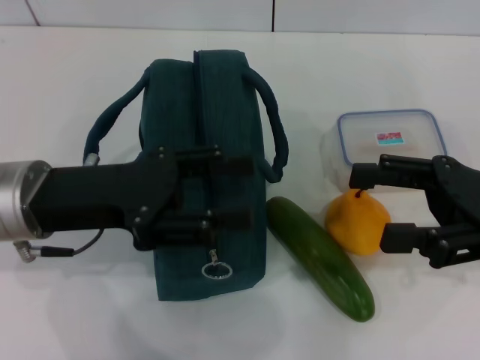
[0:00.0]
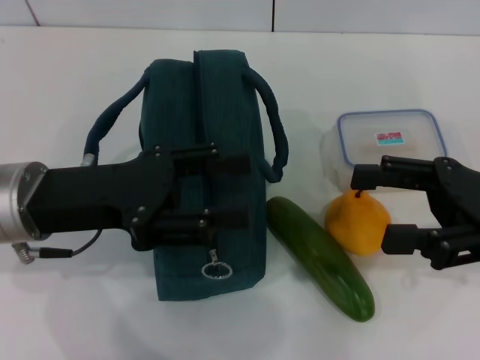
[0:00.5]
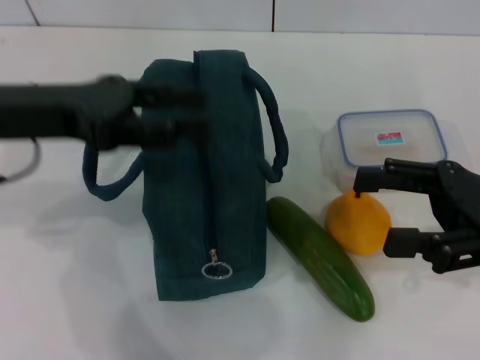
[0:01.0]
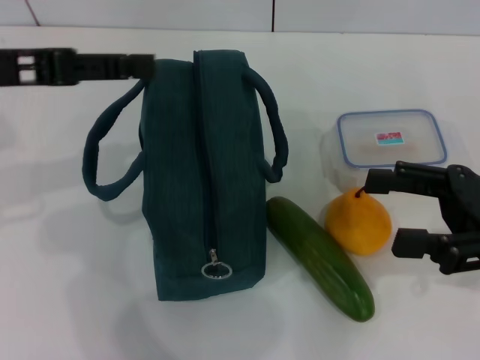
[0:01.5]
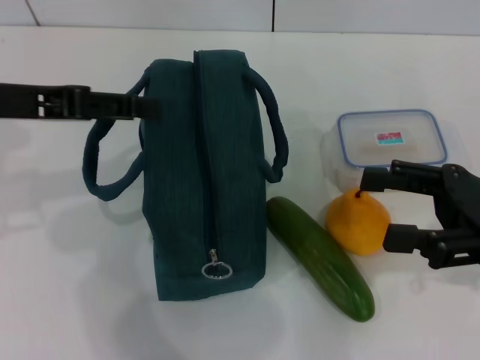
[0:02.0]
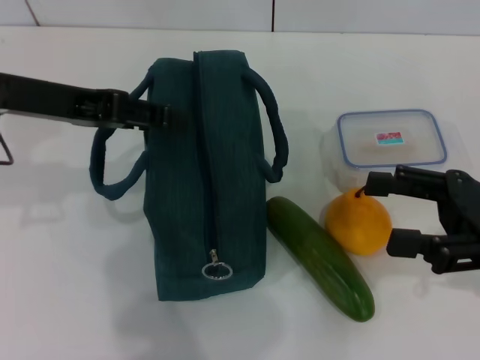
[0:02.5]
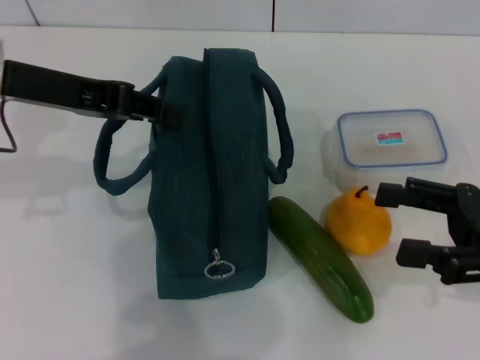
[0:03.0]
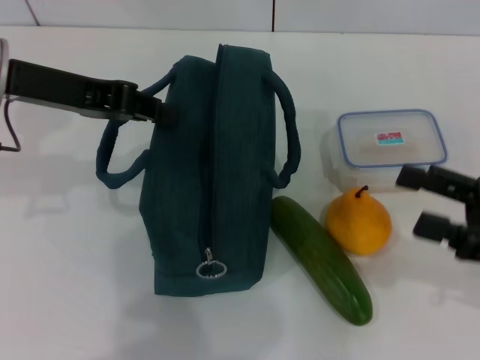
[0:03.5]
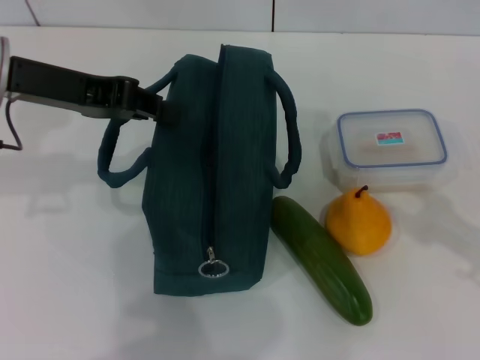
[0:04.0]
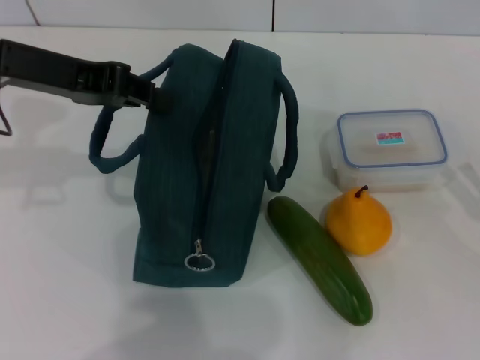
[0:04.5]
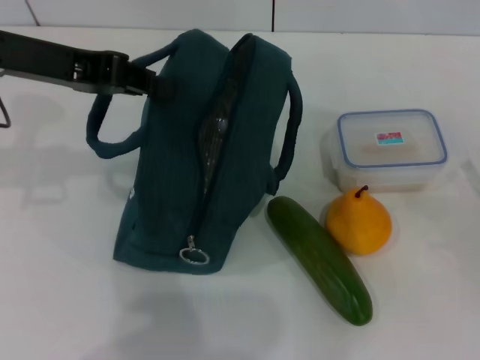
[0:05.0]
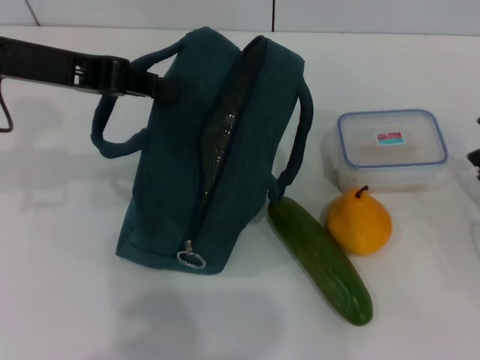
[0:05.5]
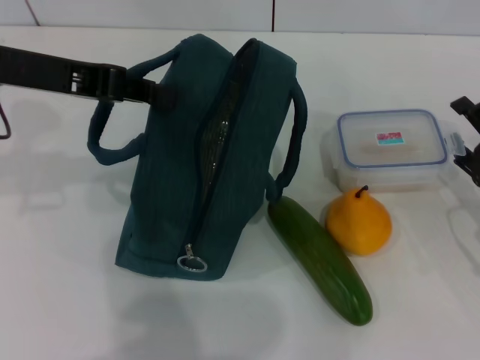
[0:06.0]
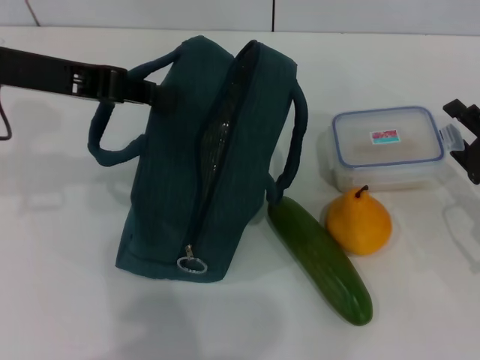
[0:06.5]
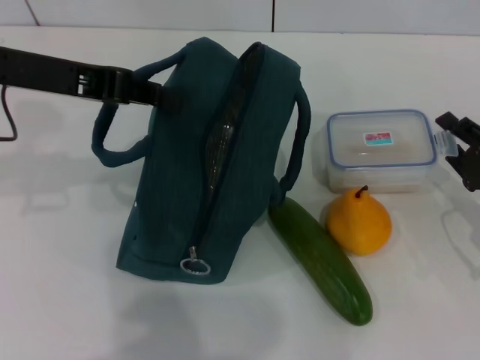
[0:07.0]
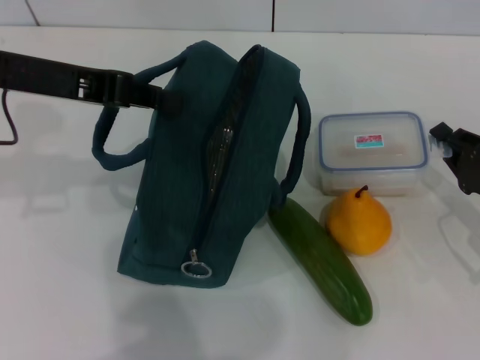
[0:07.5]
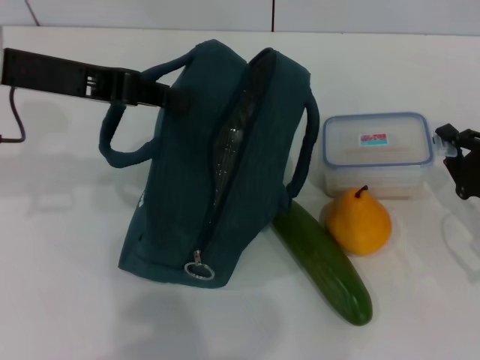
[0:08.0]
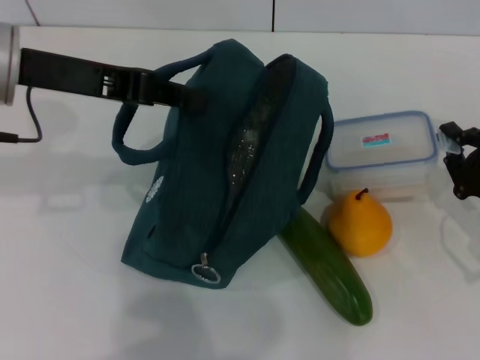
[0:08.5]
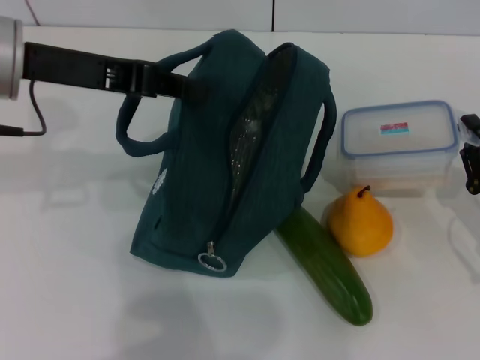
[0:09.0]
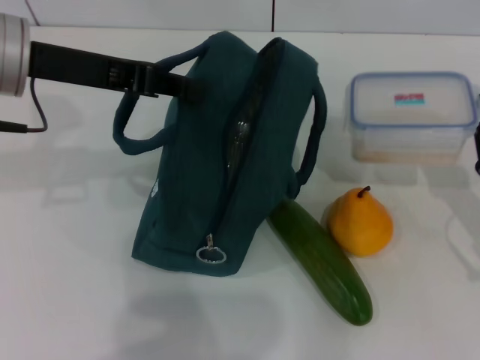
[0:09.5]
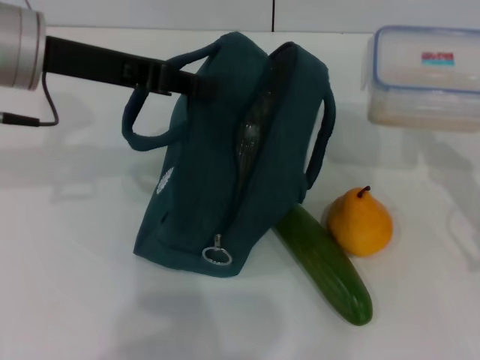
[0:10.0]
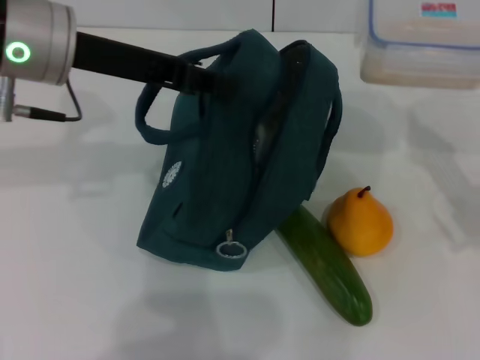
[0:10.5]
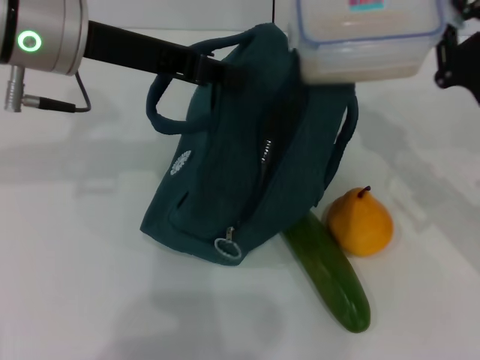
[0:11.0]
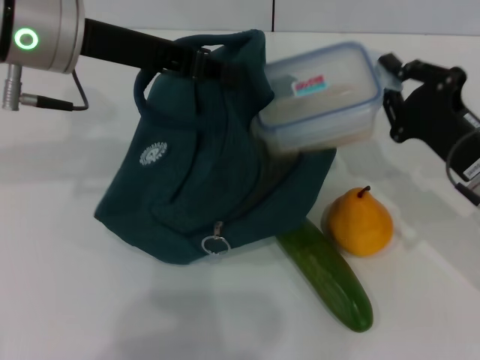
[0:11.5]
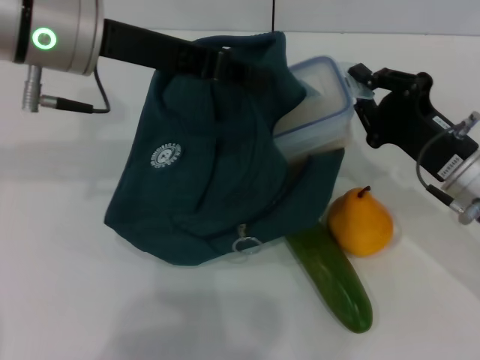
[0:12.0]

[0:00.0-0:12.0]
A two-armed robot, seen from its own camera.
Step, 0:00.0 to 0:04.0: Hold the lunch bag with your left hand.
Step, 0:04.5 to 0:08.0: Pick up the lunch box with your right hand.
0:00.0 to 0:02.0: The left gripper travels upward and to the left by approximately 10 cm.
0:02.0 to 0:04.0: The right gripper heads to the right, covering roughly 5 cm. The left gripper closes.
0:04.0 to 0:06.0: The right gripper is displaced downward and forward by approximately 10 cm.
0:06.0 to 0:08.0: The right gripper closes its fingers.
0:10.0 to 0:12.0: The right gripper is displaced to the left by approximately 10 cm.

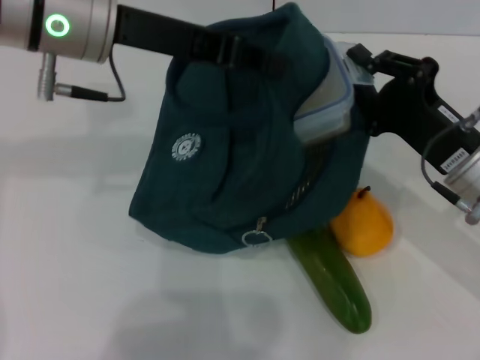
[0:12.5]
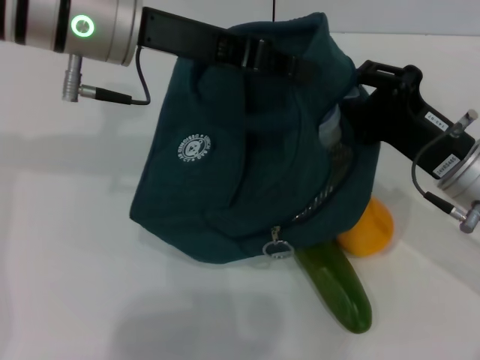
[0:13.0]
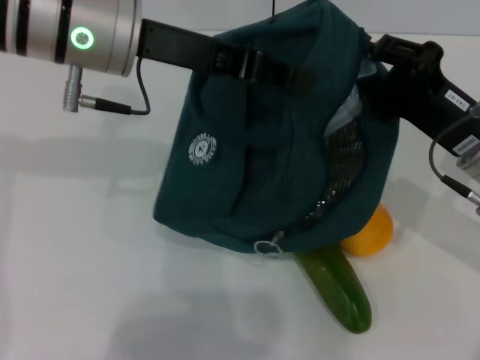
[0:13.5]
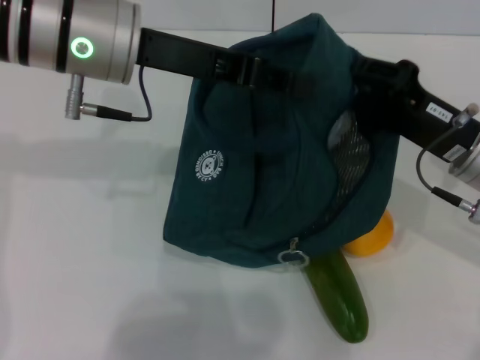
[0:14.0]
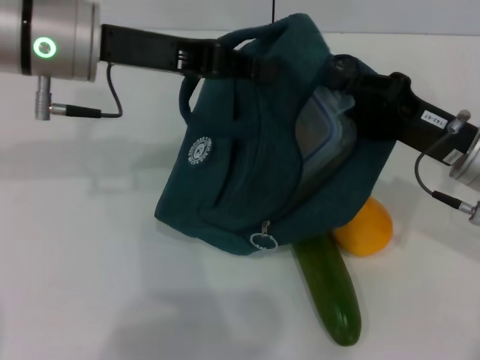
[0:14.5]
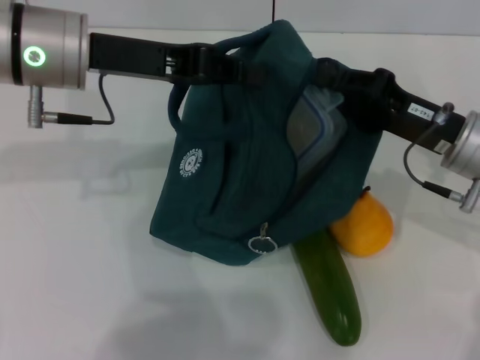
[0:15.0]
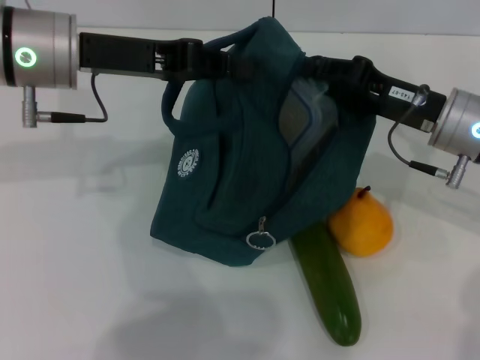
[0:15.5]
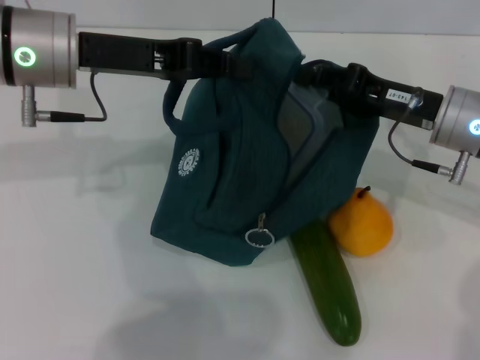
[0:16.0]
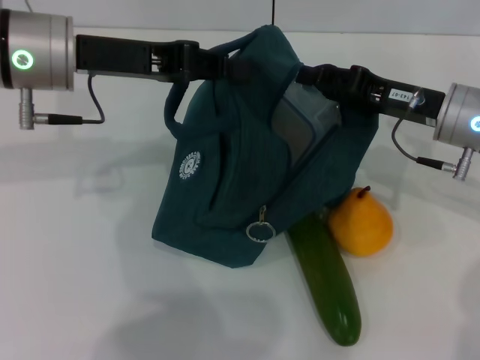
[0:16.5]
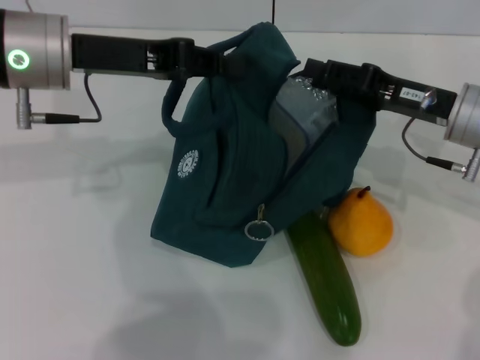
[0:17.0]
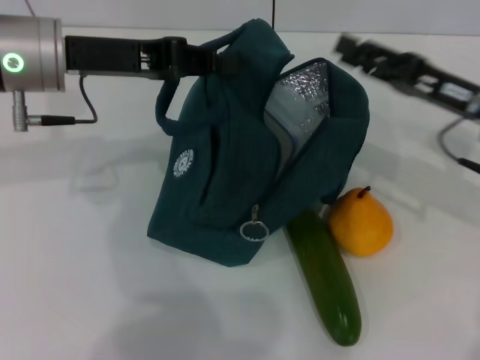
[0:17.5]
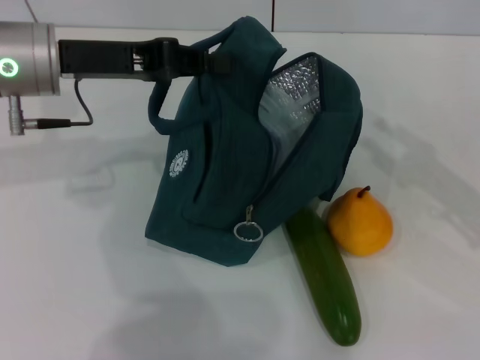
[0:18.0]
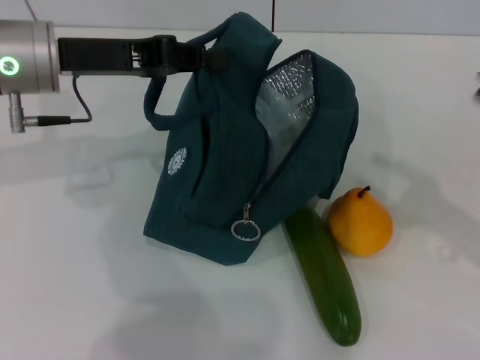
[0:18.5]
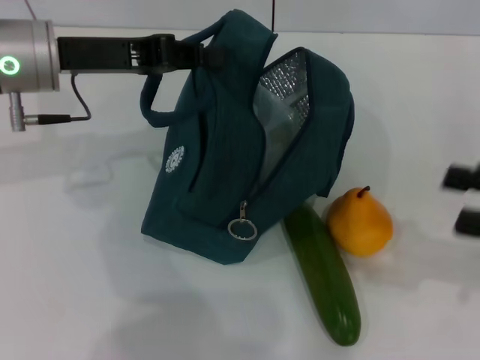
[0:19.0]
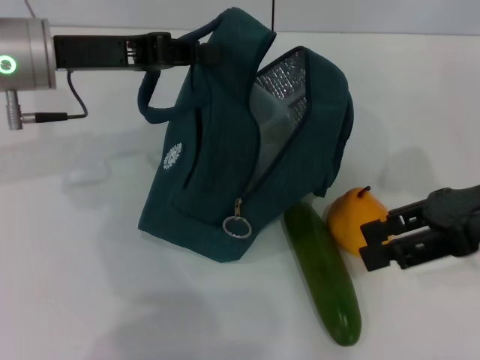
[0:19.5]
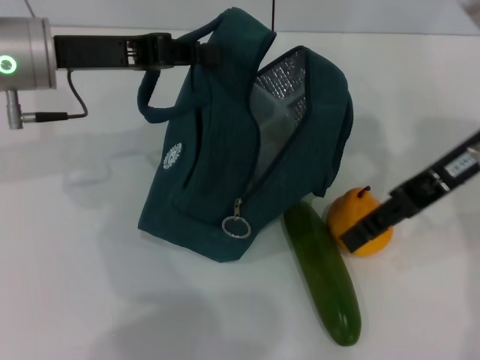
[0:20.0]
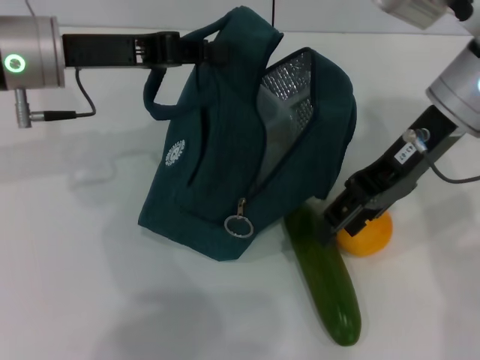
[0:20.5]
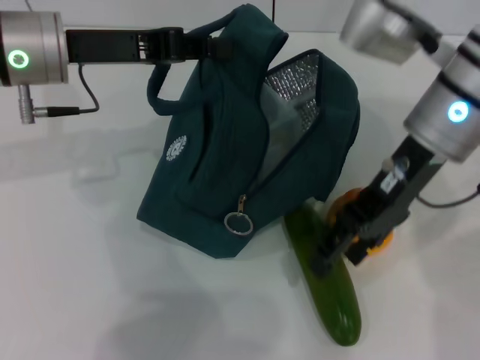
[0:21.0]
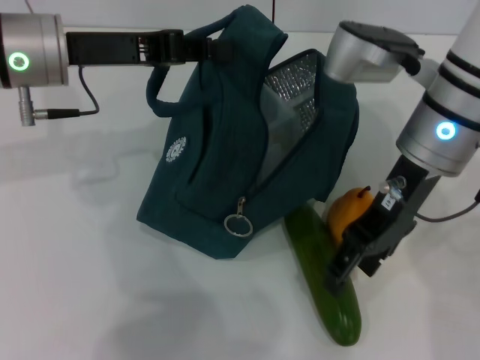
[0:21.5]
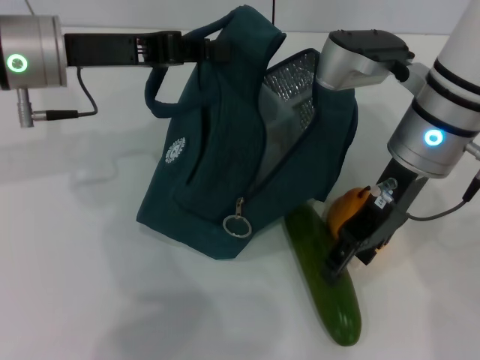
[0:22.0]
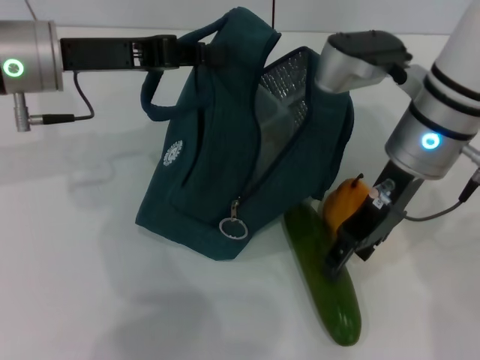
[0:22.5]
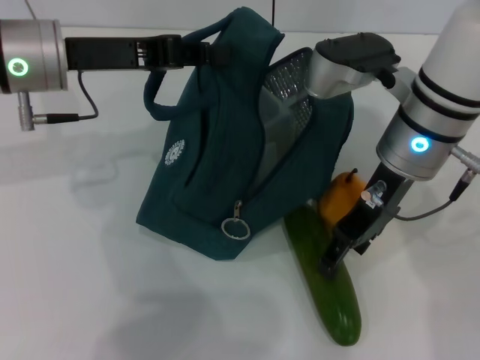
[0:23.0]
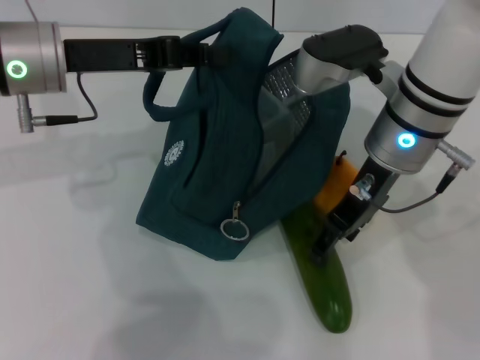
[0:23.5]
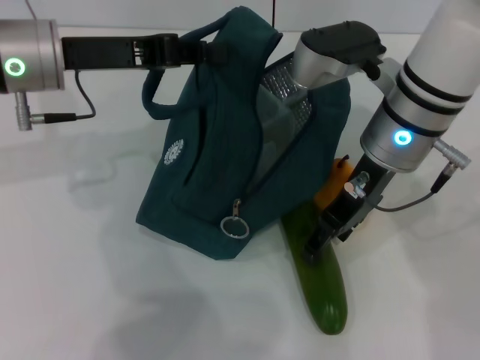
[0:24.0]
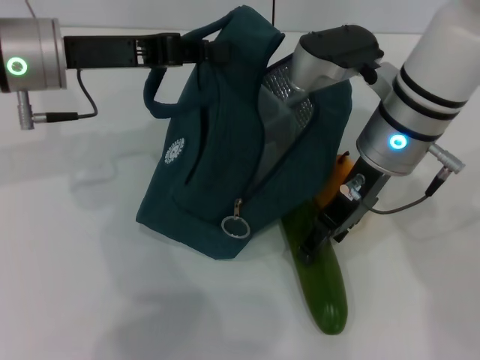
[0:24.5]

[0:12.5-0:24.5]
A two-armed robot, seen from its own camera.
Step, 0:12.5 to 0:17.0: Place the lunch box into the lunch bag with your right hand.
0:14.5 to 0:16.5: The right gripper moves forward, approximately 5 cm.
0:16.5 to 0:18.5: The right gripper is displaced backward and to the right by some 15 cm, and opens.
0:18.5 to 0:20.5: The right gripper shifts roughly 25 cm to the left, upward and forward.
0:20.5 to 0:22.5: The right gripper goes roughly 5 cm downward.
0:22.5 to 0:24.5: There are only small adjustments of the grippers.

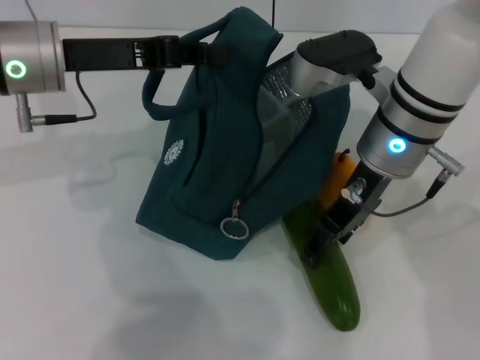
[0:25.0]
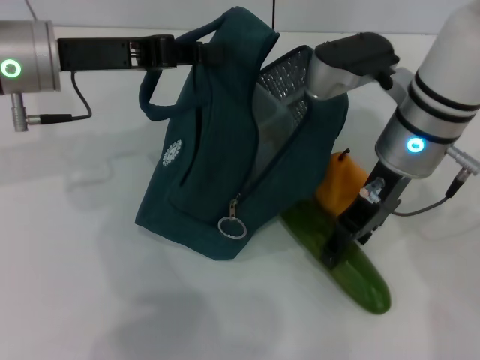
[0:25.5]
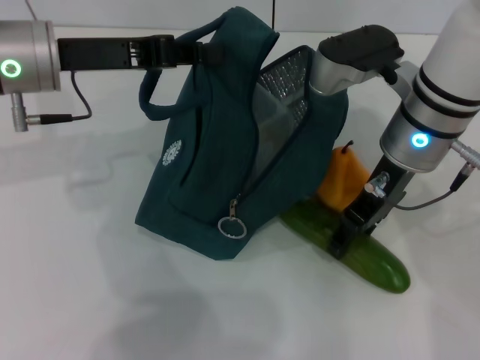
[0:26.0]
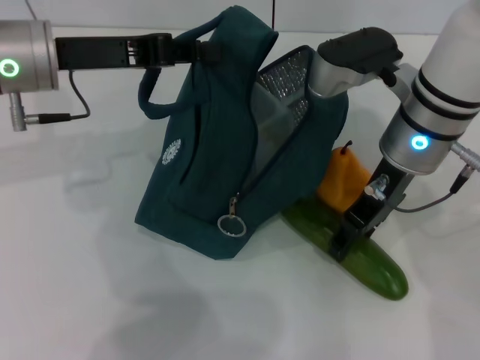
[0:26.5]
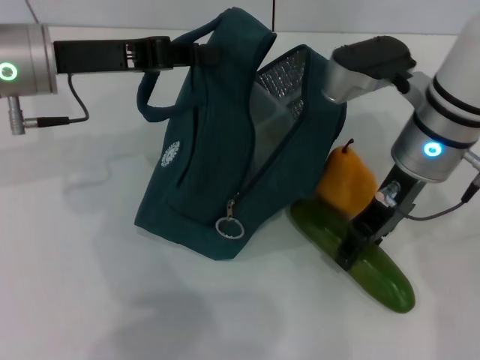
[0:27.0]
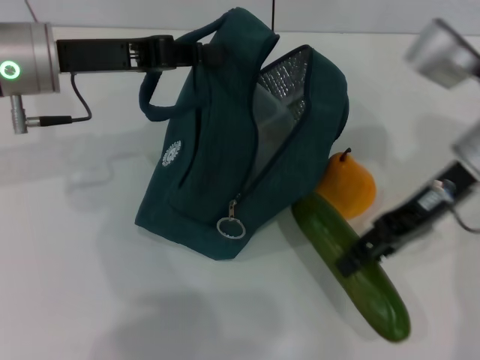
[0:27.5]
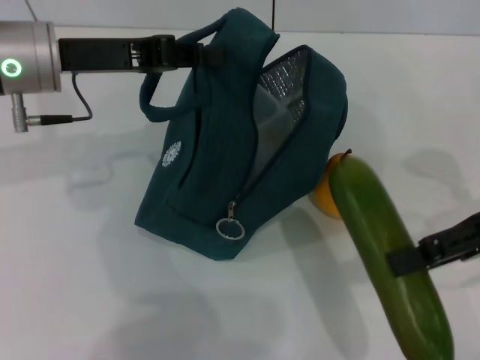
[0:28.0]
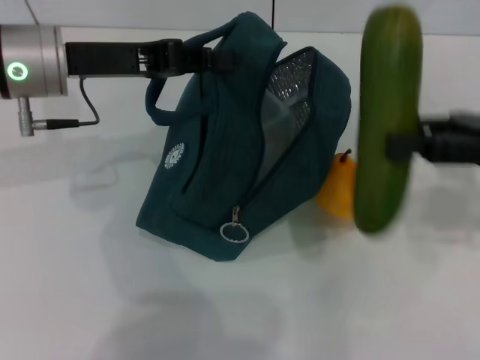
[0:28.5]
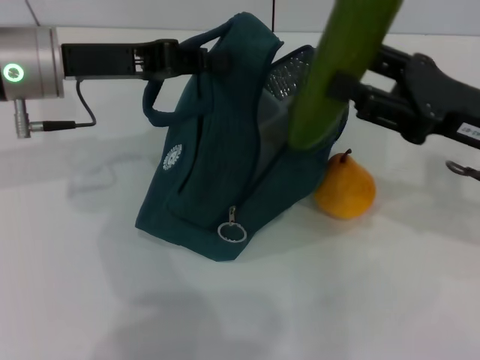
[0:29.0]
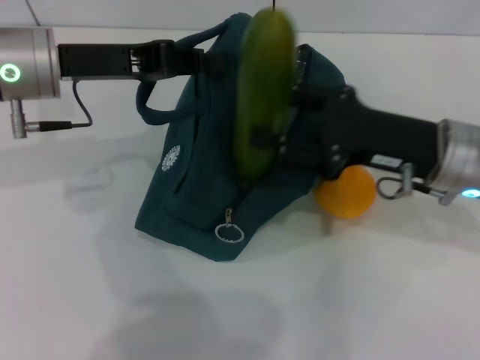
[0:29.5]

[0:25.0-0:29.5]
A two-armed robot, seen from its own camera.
0:27.0 to 0:29.5: The right gripper goes approximately 5 cm to the right.
